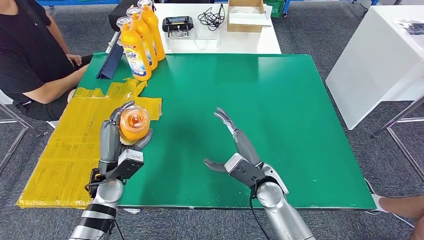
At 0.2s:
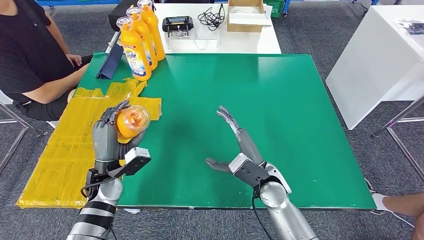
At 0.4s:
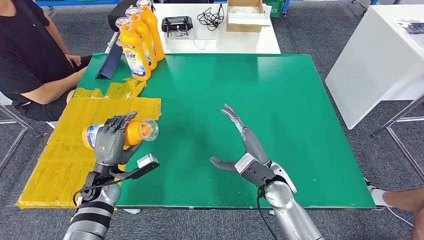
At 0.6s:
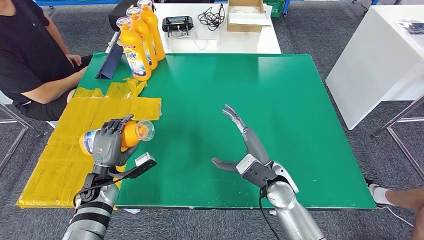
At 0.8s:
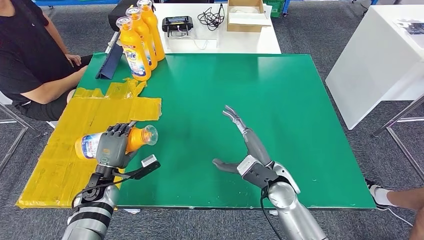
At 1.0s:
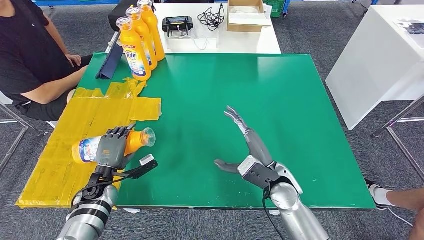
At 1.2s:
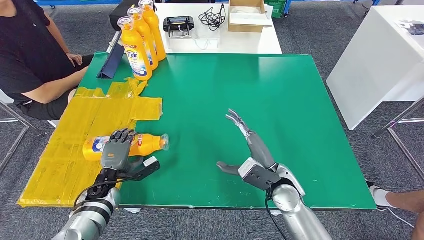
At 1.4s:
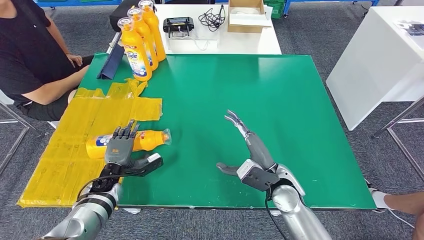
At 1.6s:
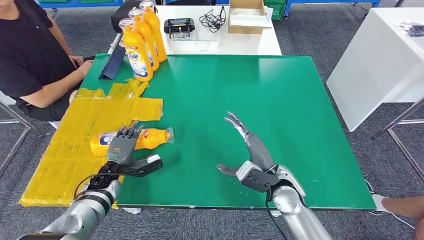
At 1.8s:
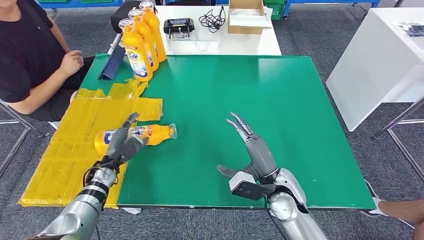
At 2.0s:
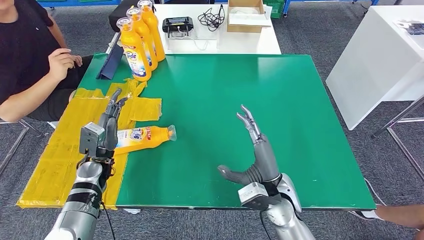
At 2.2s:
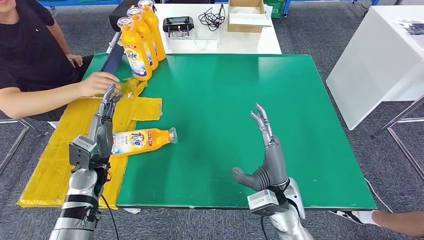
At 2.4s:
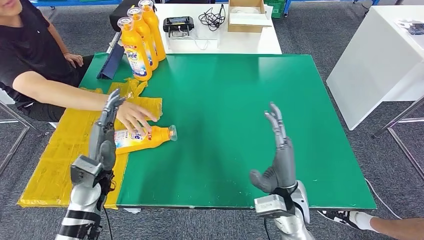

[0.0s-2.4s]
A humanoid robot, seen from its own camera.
Step, 0.0s to 2.4s: Flip the bottle to face forward.
0.0s to 1.2s: The left hand travels downward and to the left by roughly 10 cm.
1.2s to 2.4s: The left hand is displaced upward by some 15 cm.

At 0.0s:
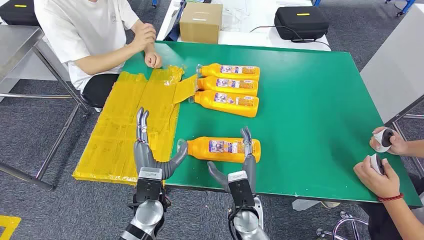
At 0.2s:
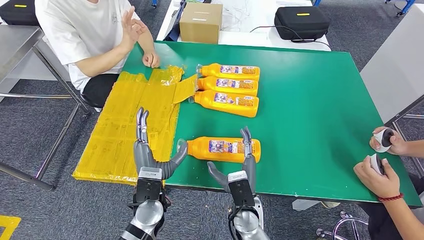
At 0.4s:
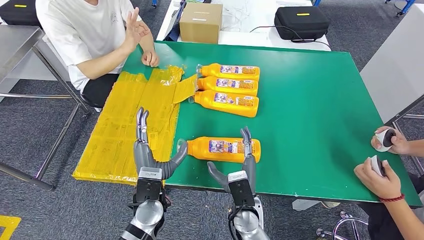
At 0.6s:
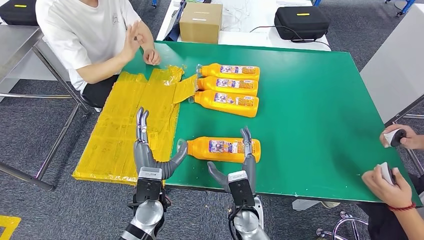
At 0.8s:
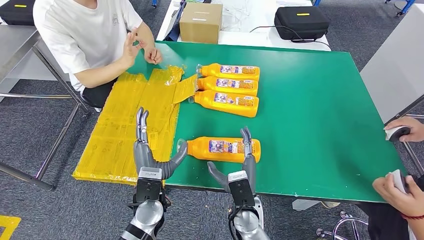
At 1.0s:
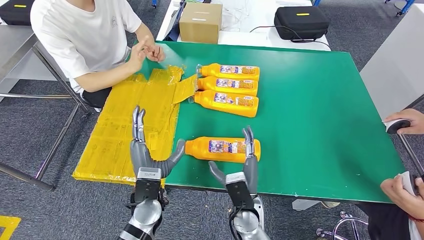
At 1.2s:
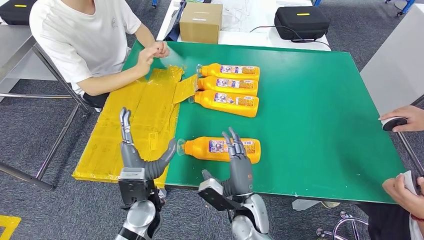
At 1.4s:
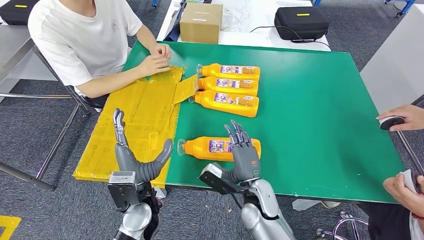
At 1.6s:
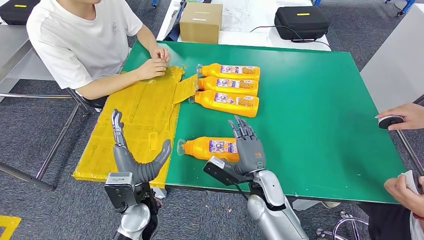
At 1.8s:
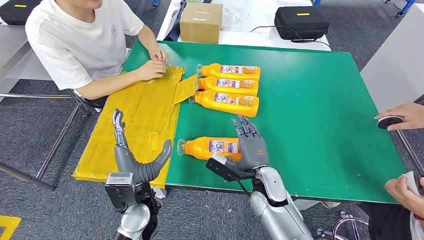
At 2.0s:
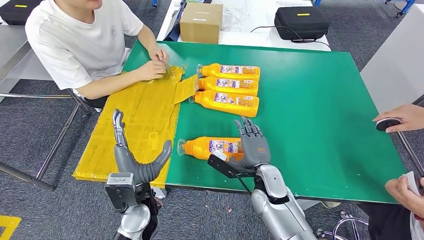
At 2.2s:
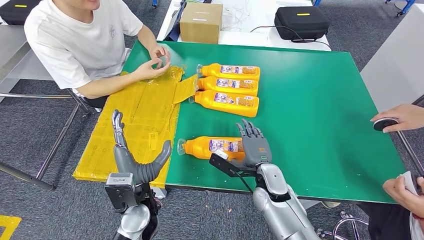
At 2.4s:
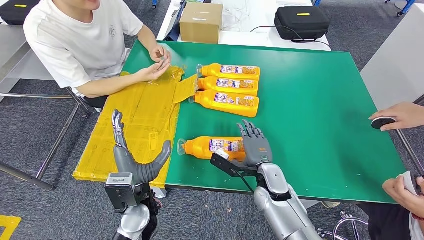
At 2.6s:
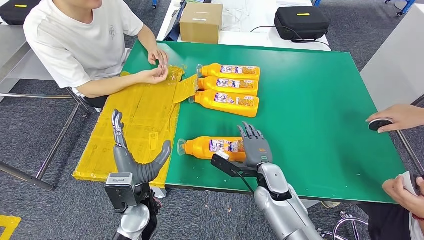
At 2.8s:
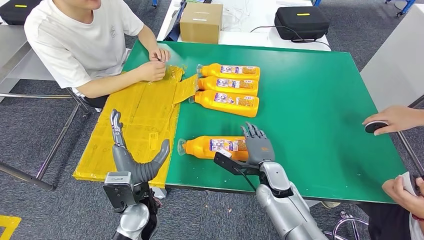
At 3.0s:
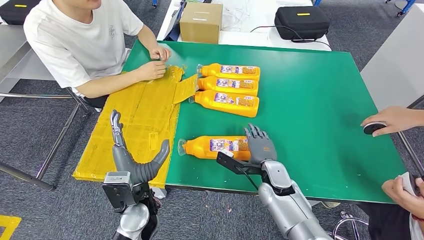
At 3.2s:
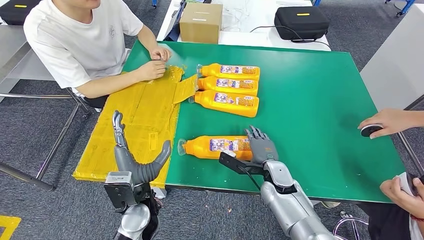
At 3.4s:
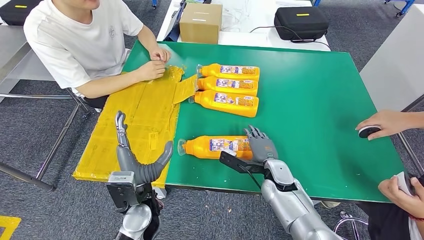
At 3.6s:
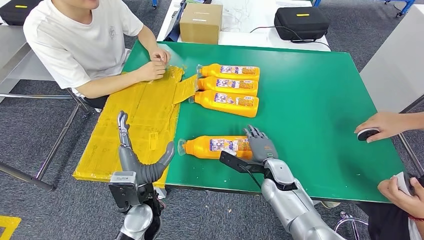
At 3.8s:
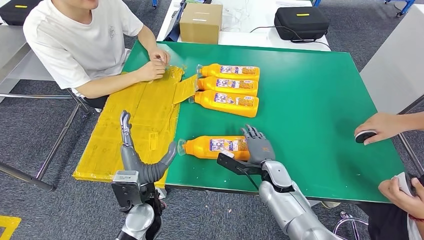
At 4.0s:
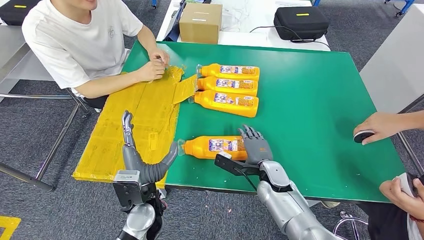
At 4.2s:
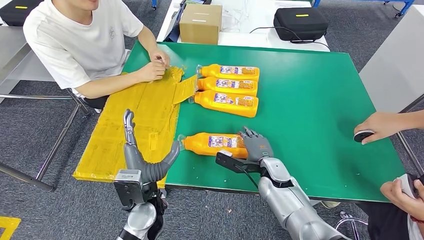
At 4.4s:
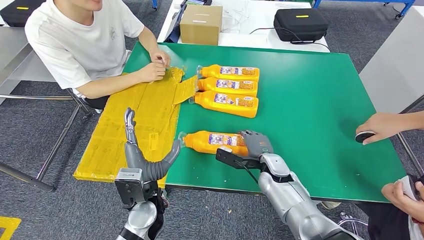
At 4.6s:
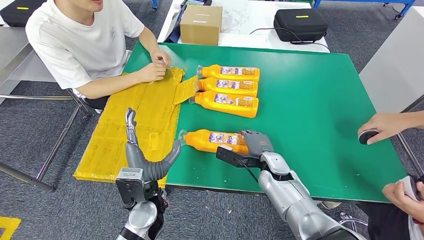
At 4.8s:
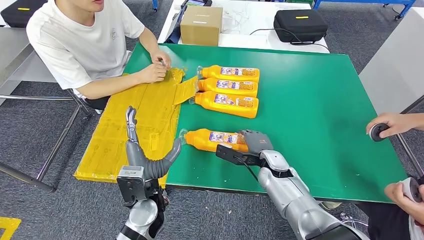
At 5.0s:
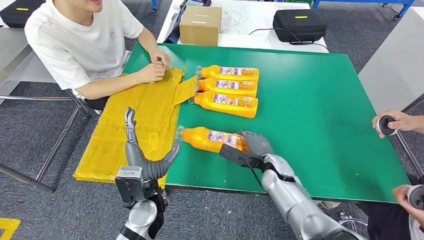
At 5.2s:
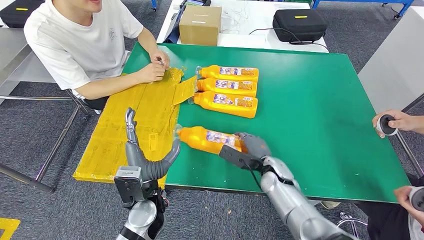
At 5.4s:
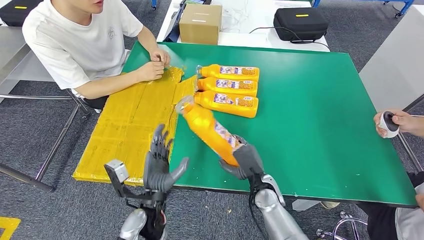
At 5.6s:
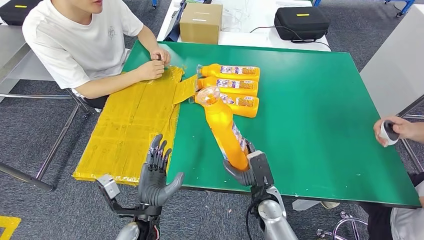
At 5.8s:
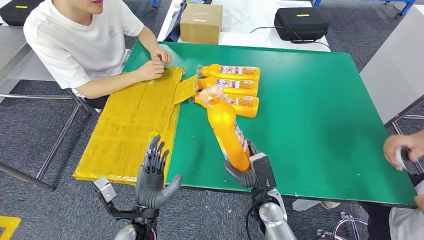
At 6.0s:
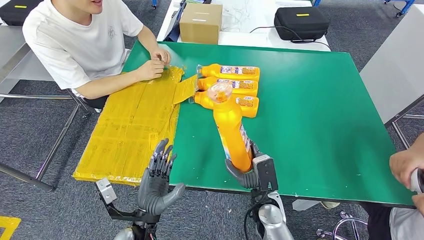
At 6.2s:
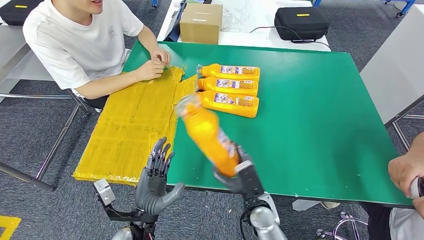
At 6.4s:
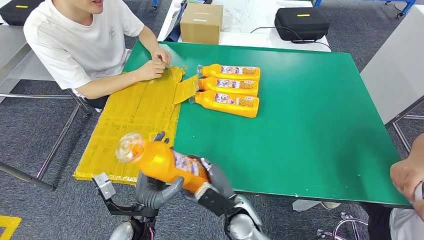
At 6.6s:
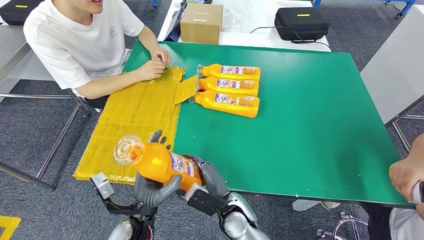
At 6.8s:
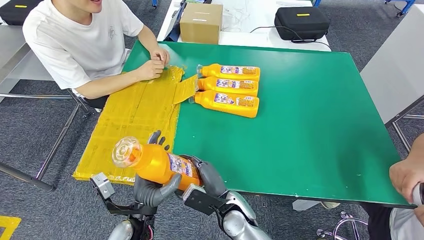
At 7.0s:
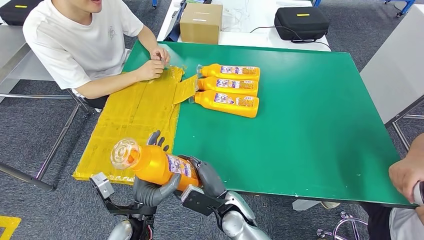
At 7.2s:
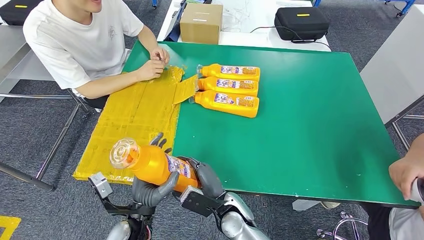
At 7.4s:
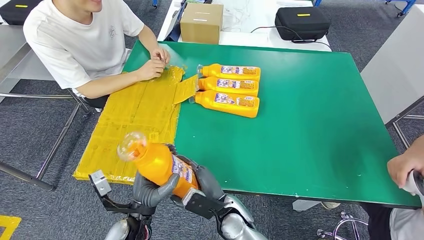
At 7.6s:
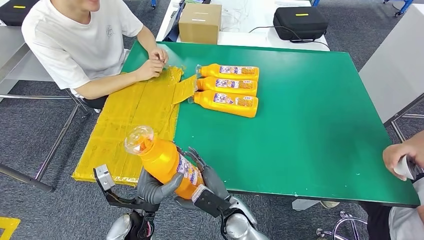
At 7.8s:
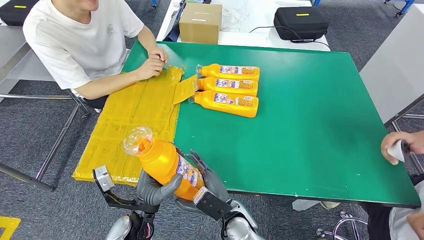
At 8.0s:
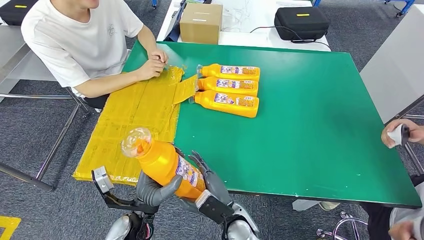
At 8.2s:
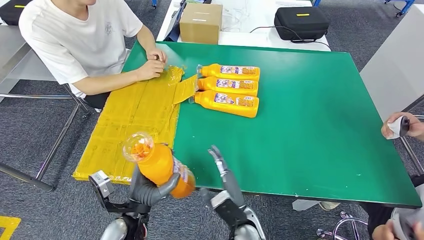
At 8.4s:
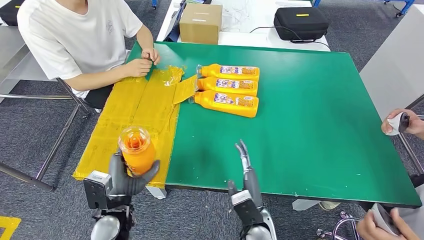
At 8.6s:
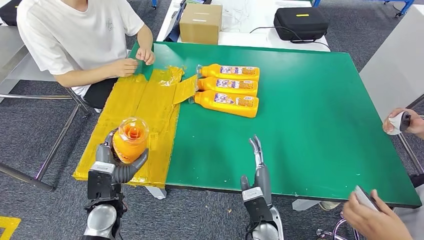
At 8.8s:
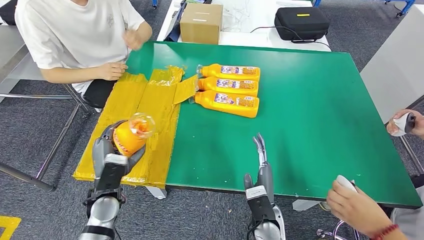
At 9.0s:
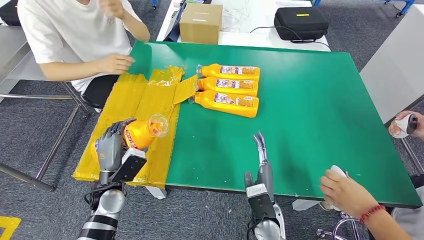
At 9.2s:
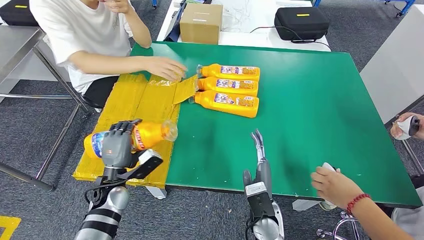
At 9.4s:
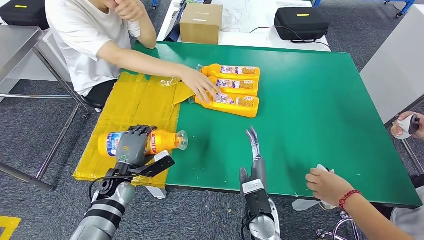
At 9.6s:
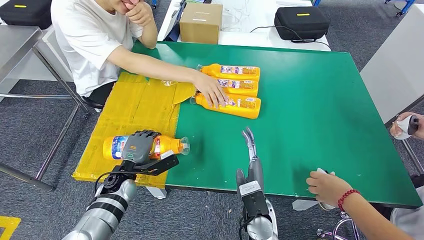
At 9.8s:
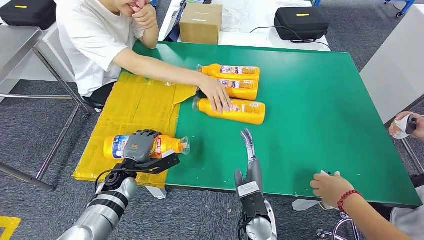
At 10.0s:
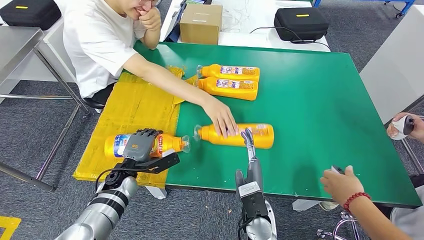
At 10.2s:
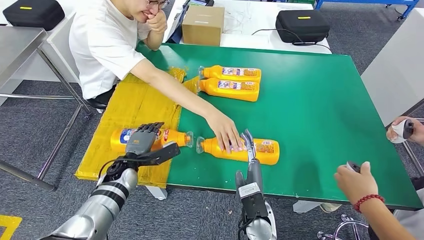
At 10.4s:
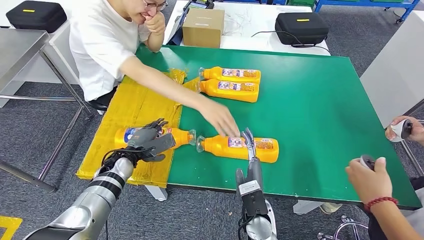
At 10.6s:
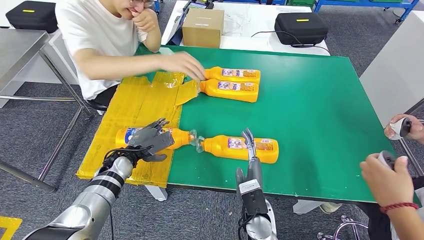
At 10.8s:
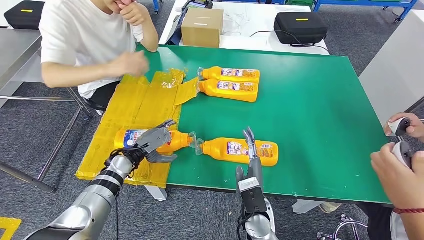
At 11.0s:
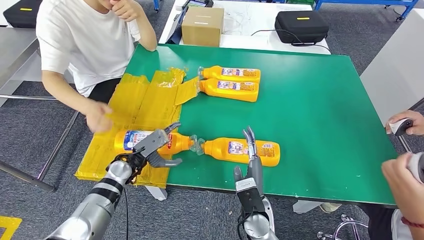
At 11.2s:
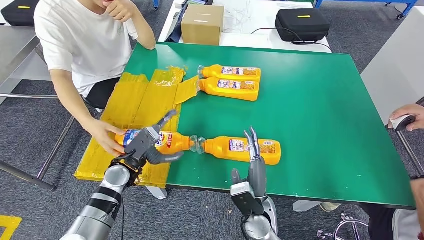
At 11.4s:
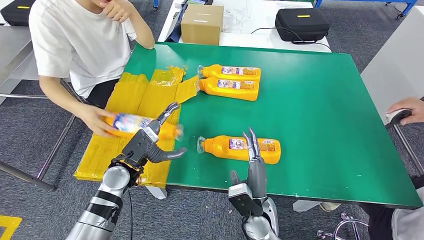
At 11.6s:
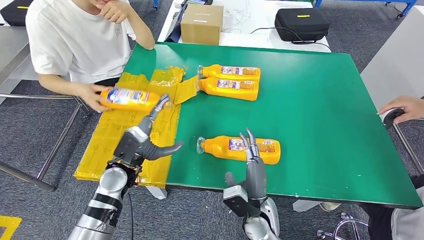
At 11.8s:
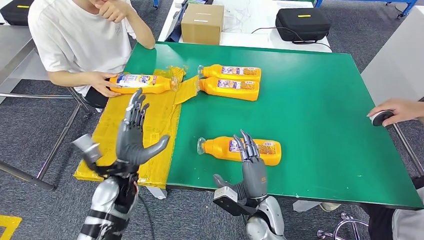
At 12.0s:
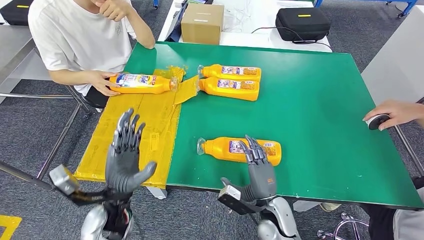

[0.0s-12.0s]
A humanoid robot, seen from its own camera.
Step, 0.0s to 7.0s: Take the bottle from the table.
1.6s to 3.0s: The right hand ends up approximately 5 cm from where it was.
3.0s to 4.4s: There are only small adjustments of the hands.
6.0s to 7.6s: The right hand moves to the left, some 10 cm.

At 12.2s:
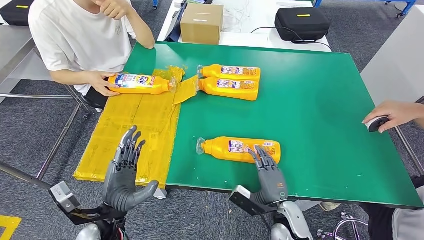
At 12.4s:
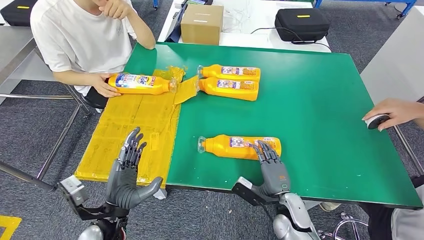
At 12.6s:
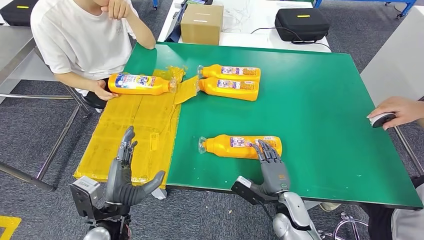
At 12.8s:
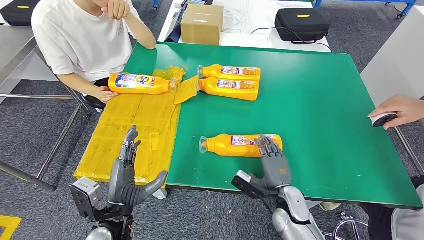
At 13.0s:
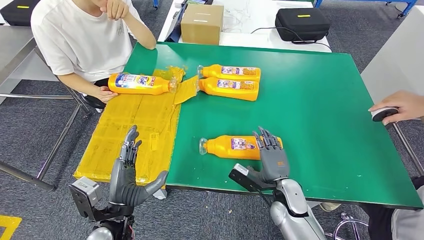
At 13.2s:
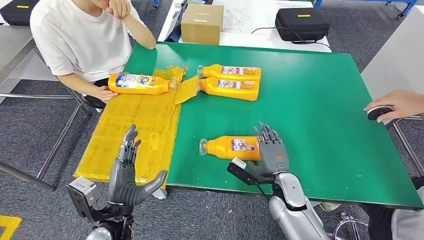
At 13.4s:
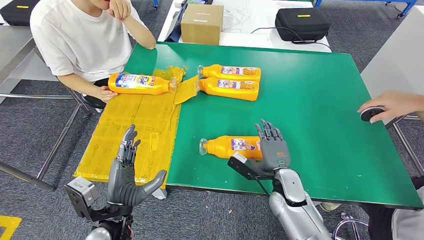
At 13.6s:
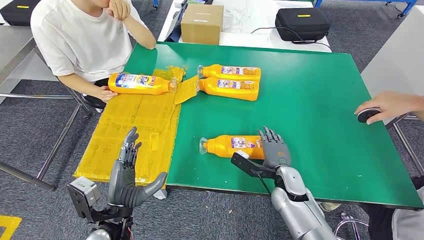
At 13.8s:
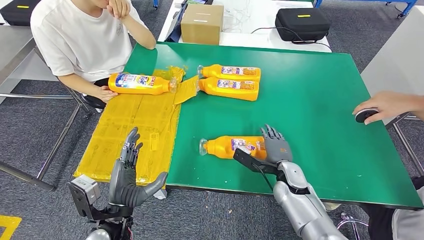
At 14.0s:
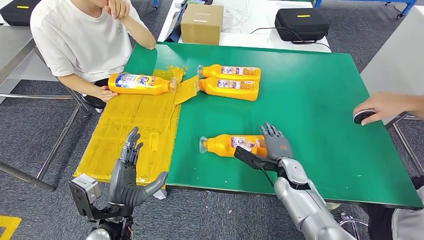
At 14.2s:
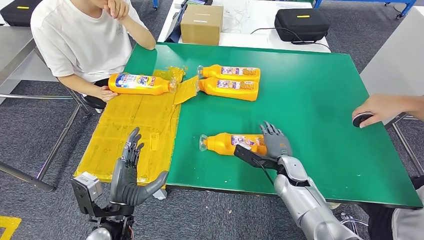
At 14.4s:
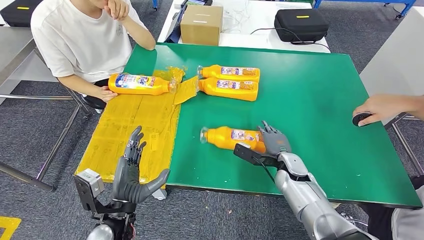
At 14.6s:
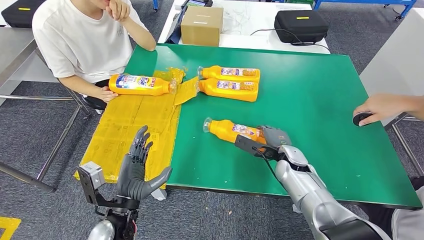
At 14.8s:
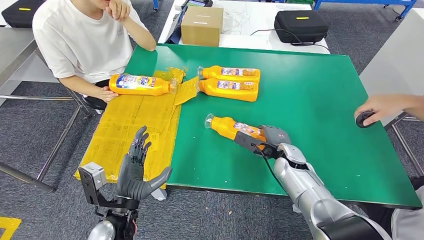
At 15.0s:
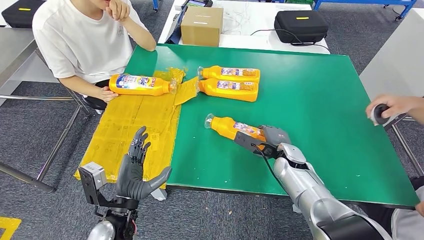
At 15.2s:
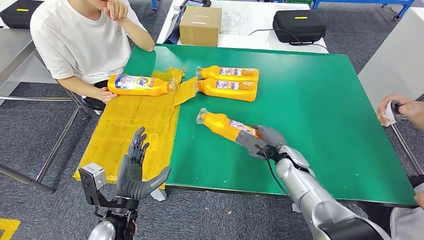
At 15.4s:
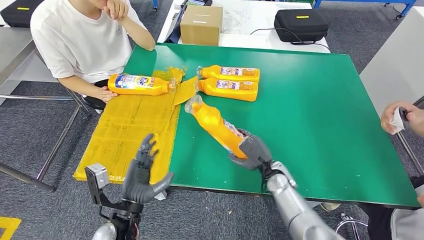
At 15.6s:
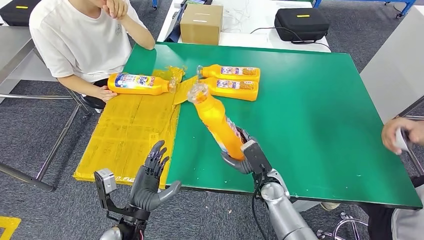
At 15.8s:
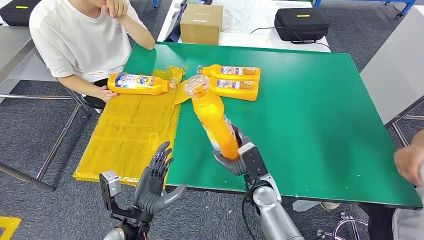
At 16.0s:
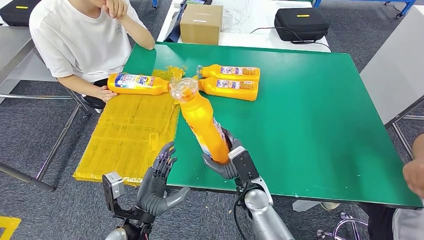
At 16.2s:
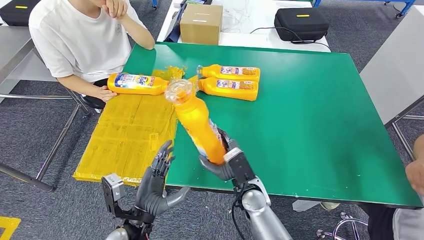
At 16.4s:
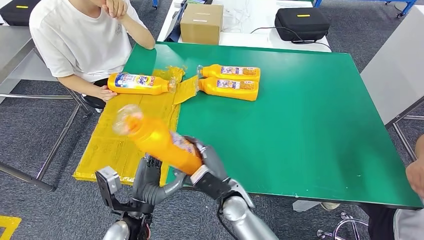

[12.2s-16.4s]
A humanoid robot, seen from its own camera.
Step, 12.8s to 16.2s: Pick up the bottle from the table.
12.2s to 13.6s: The right hand heads forward, covering roughly 10 cm.
13.6s to 15.0s: The right hand shifts some 5 cm forward.
